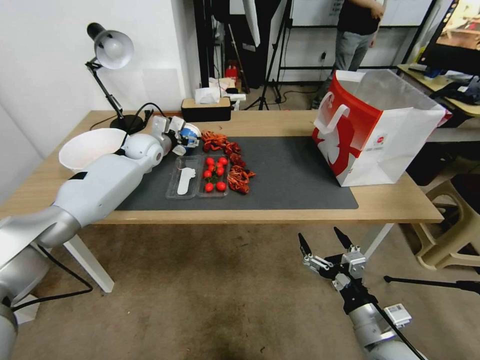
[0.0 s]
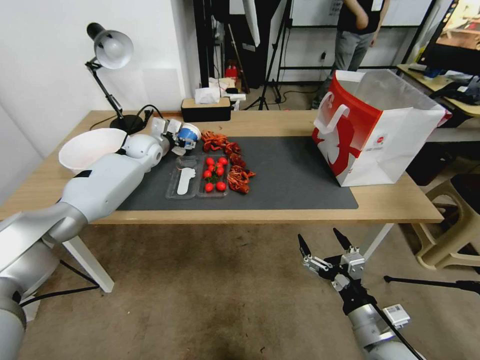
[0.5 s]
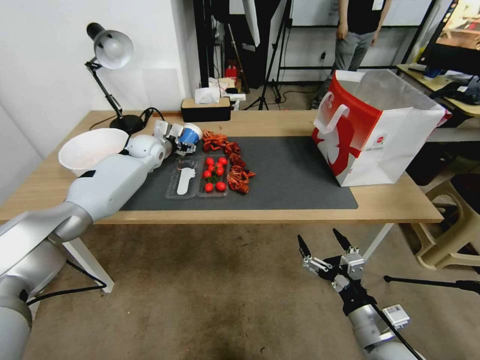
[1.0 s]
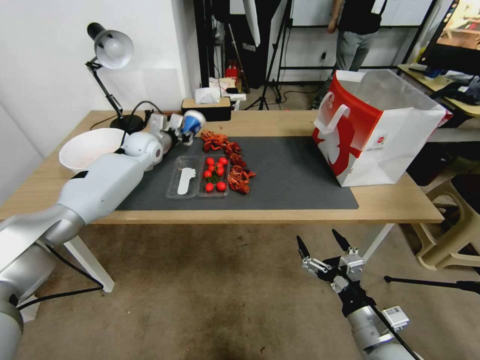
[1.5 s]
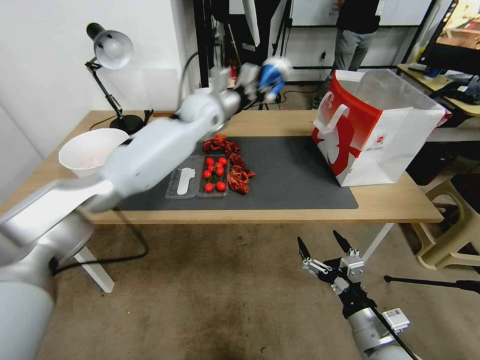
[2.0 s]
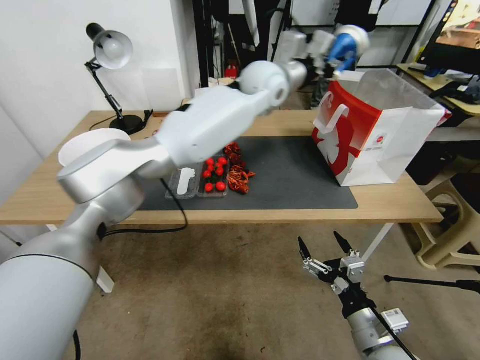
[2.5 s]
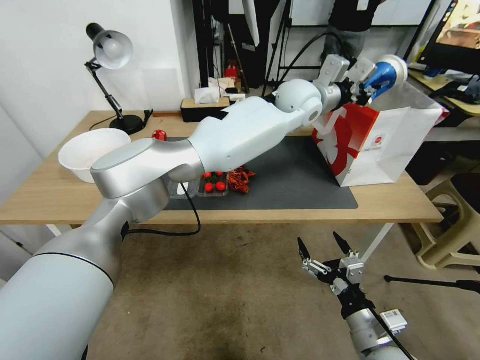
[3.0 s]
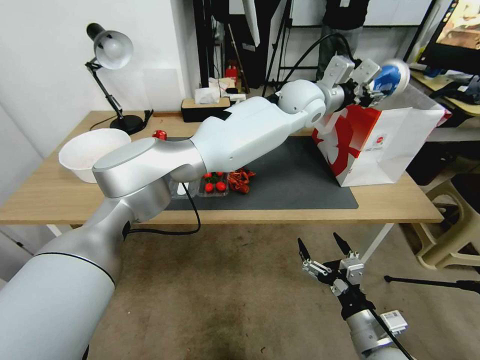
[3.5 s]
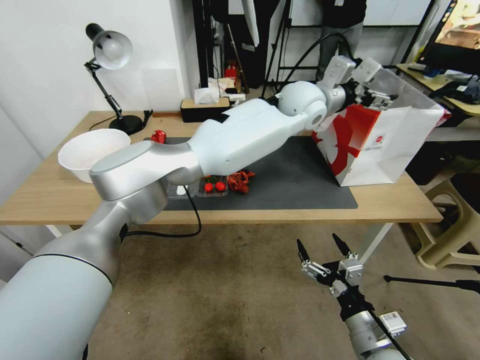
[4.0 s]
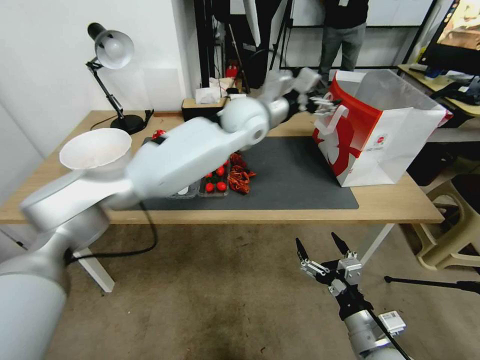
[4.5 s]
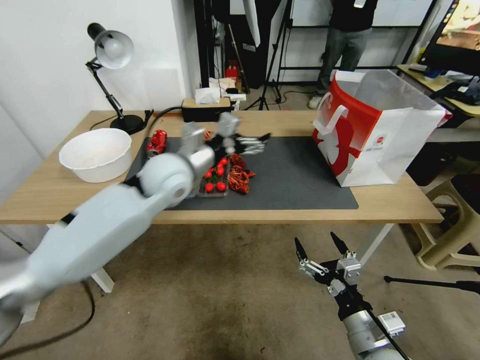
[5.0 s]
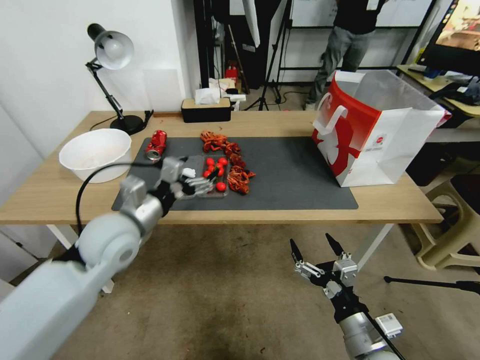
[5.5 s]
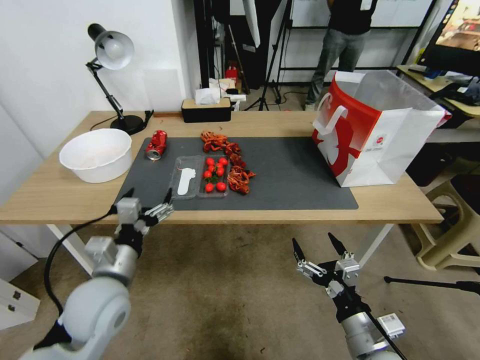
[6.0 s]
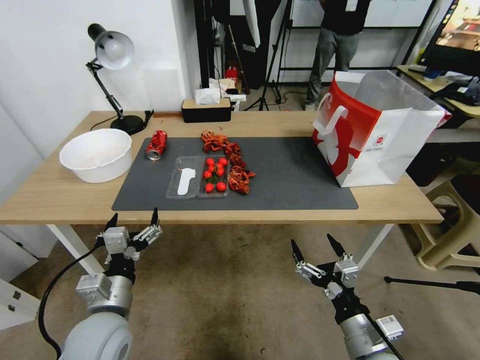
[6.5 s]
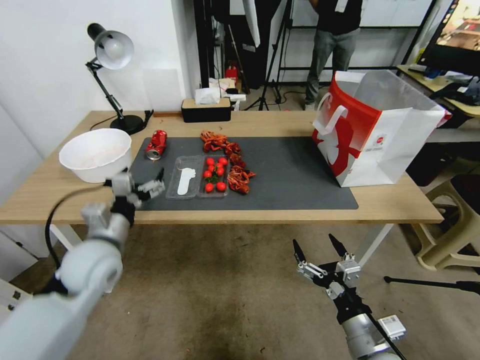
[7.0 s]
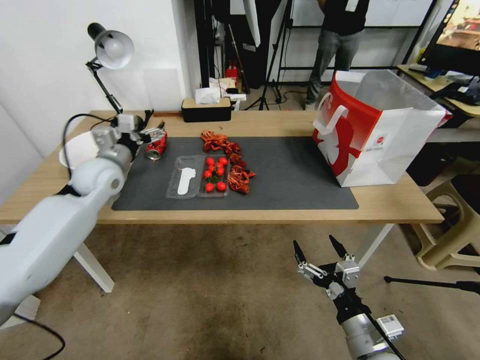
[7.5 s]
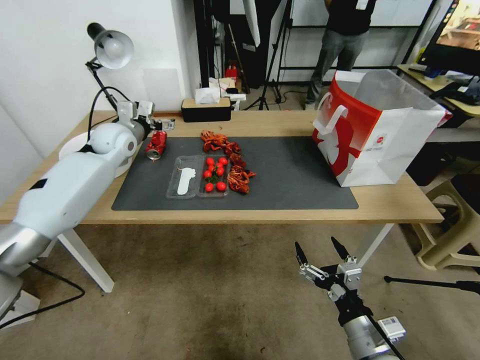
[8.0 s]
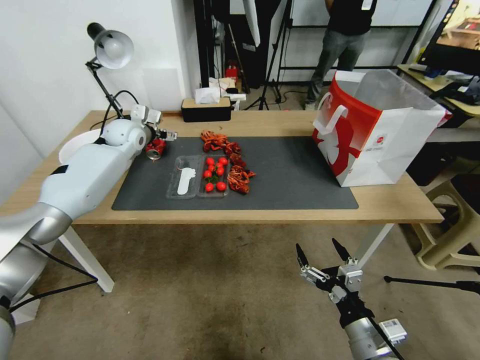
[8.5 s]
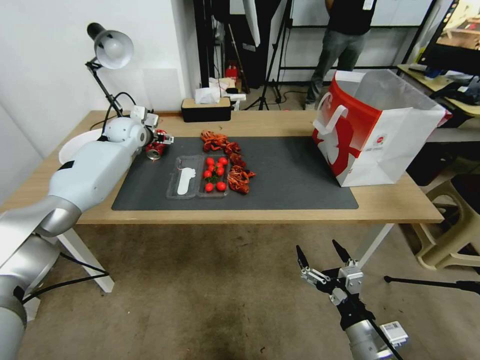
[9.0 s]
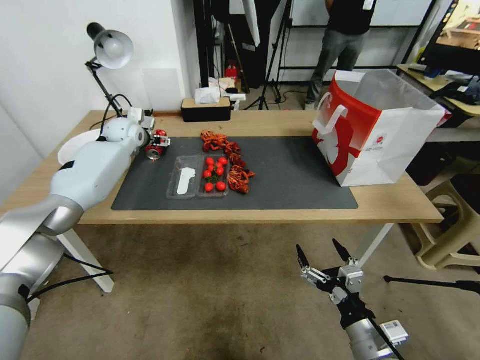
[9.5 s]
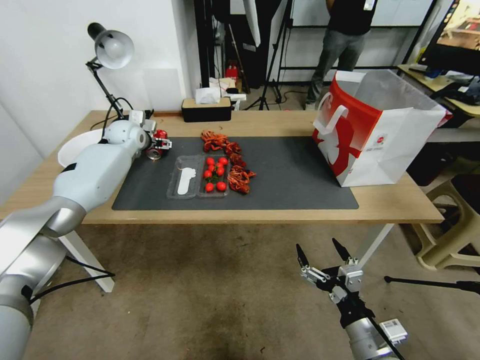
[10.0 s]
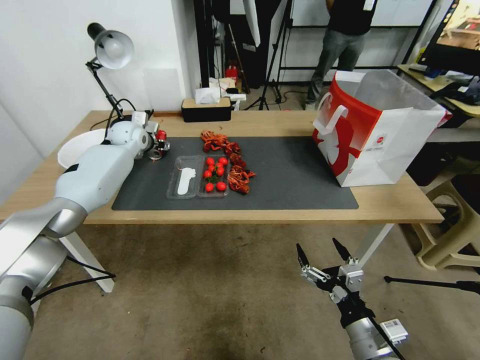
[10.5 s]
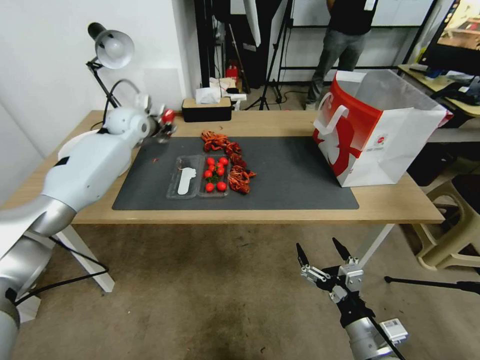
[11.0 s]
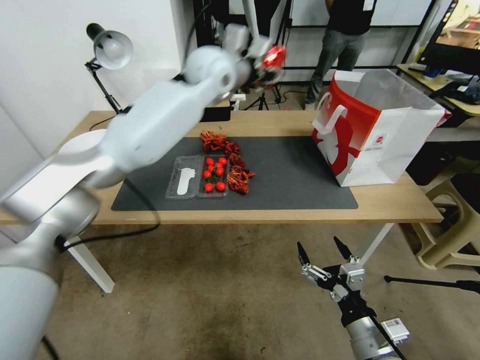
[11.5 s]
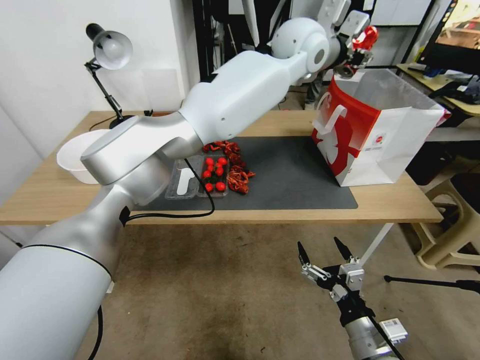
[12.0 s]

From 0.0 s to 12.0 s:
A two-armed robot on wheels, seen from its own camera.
From 0.0 s to 2.0 s: The left gripper shifts some 20 cm to the right and upward, and closes up.
From 2.0 s to 4.0 s: The left gripper shifts approximately 20 cm to the right, and opens up.
From 4.0 s to 6.0 s: The left gripper shifts about 50 cm to the left, backward and downward.
From 6.0 s to 8.0 s: The left gripper moves forward, about 30 cm.
From 8.0 s to 10.0 s: The left gripper shifts some 10 cm forward.
From 10.0 s to 12.0 s: The left gripper shifts approximately 50 cm to the right and upward, and closes.

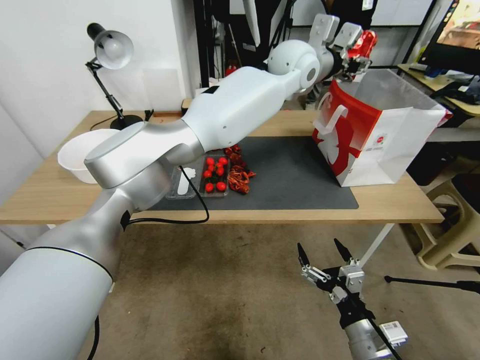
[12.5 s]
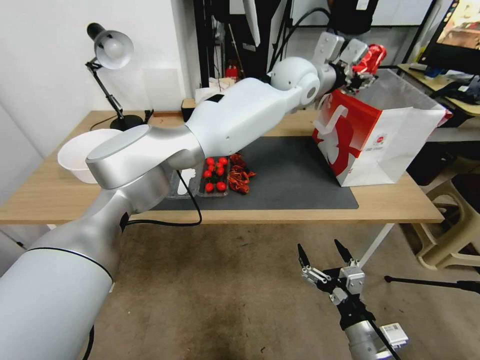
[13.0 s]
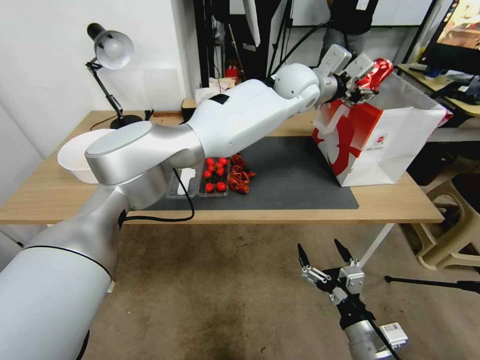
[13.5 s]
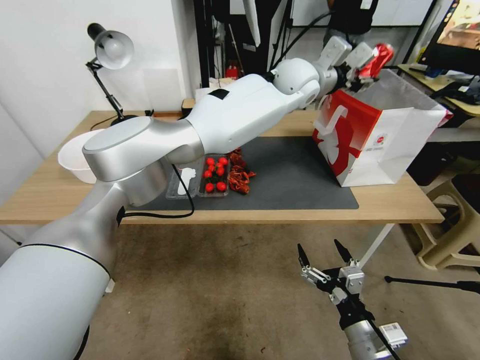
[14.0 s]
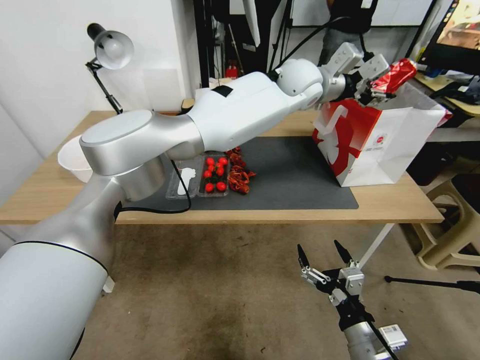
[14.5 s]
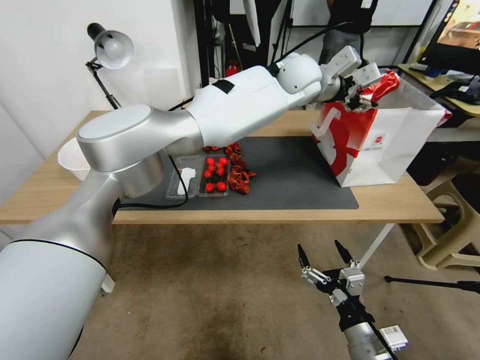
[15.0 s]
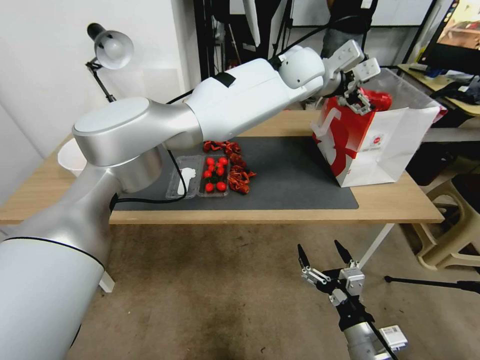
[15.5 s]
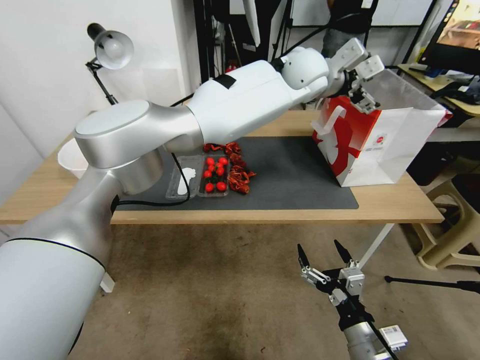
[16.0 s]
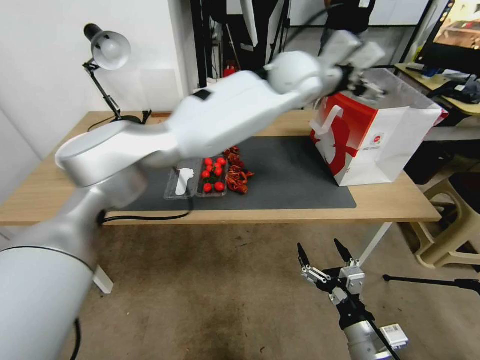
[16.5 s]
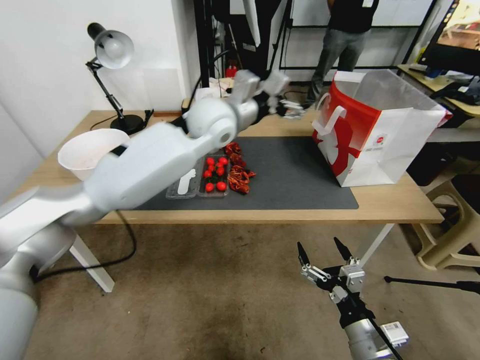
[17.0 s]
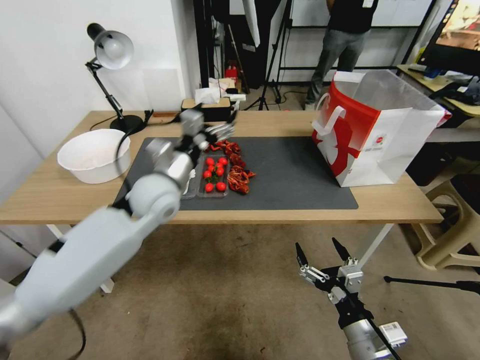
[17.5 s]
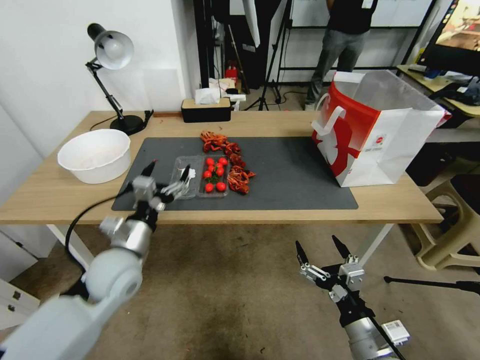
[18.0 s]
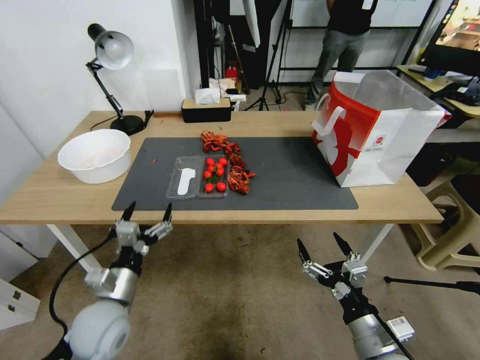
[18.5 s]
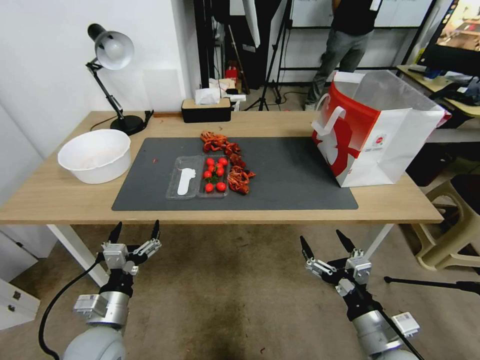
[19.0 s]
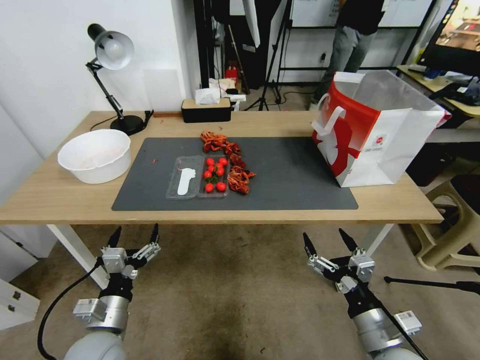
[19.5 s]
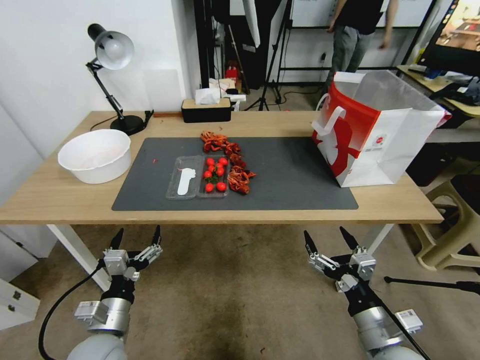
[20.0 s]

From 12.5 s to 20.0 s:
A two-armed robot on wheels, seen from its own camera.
From 14.5 s to 16.5 s: The left gripper ends up some 5 cm from where it was, and opens up.
From 16.5 s to 18.0 s: The left gripper moves to the left, downward and backward, some 50 cm.
From 18.0 s to 20.0 s: The left gripper travels backward and downward by roughly 15 cm.
